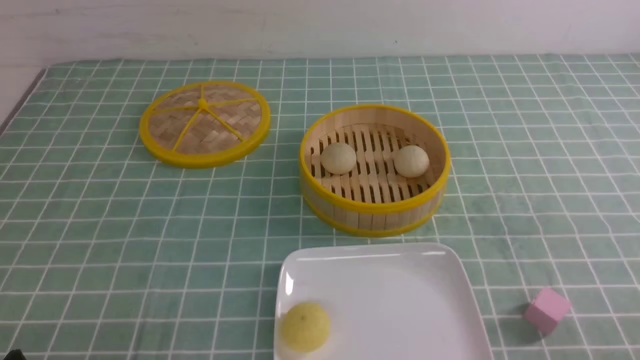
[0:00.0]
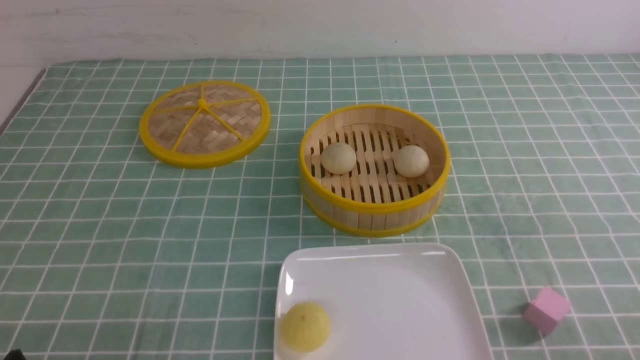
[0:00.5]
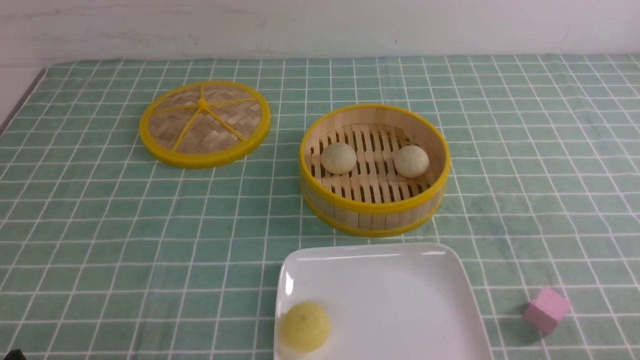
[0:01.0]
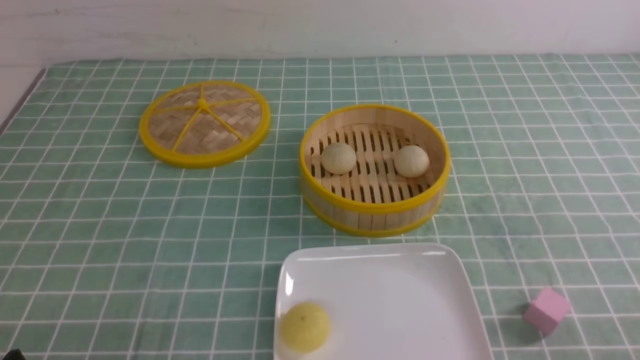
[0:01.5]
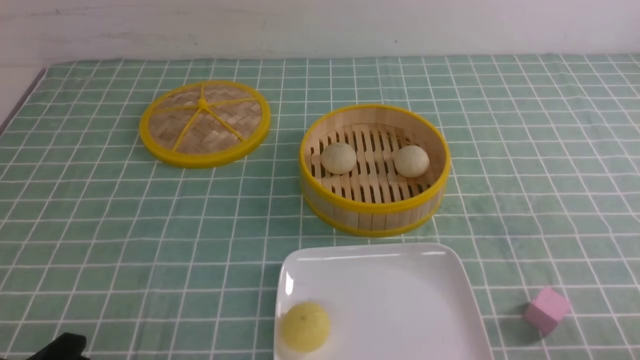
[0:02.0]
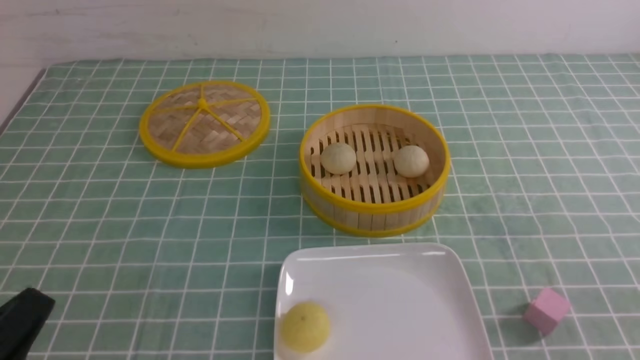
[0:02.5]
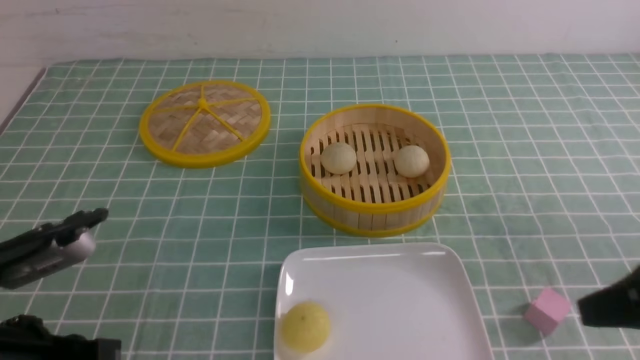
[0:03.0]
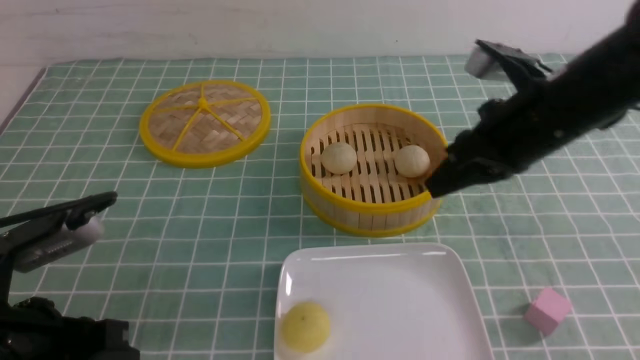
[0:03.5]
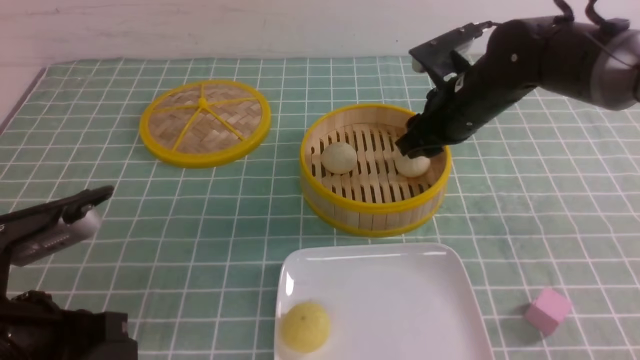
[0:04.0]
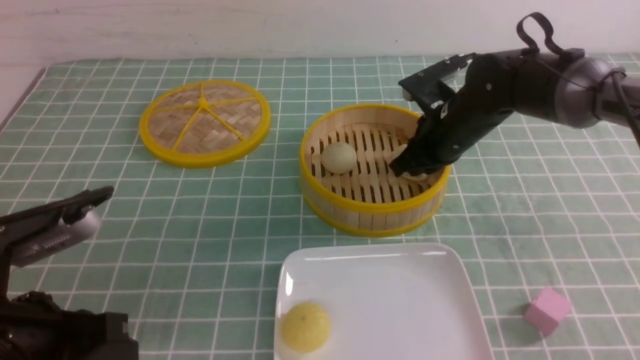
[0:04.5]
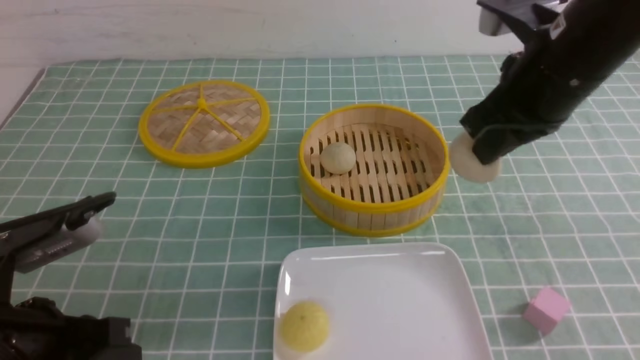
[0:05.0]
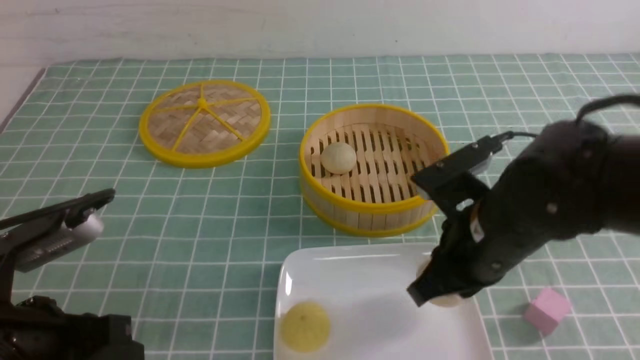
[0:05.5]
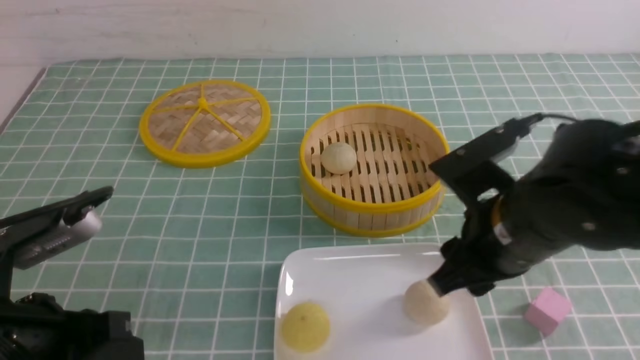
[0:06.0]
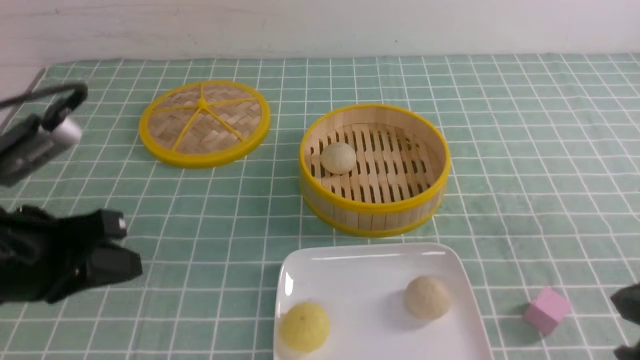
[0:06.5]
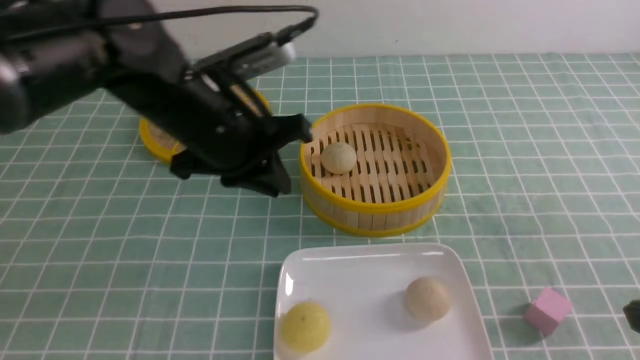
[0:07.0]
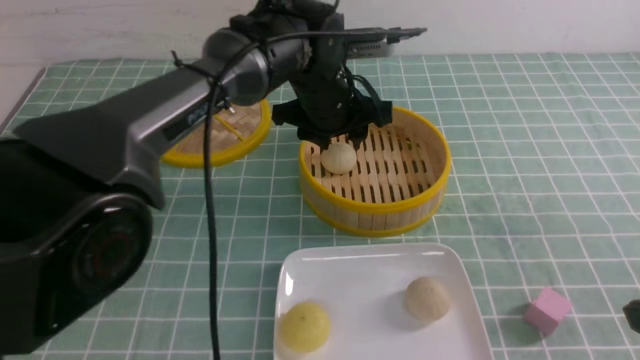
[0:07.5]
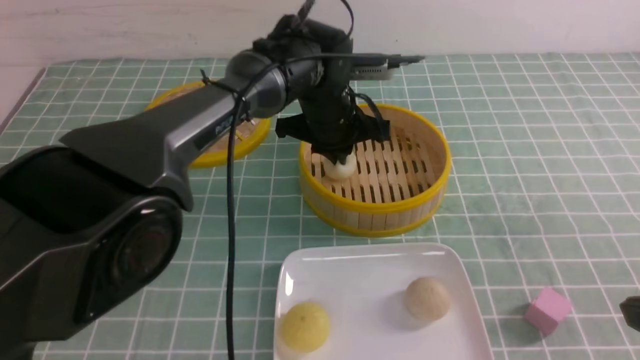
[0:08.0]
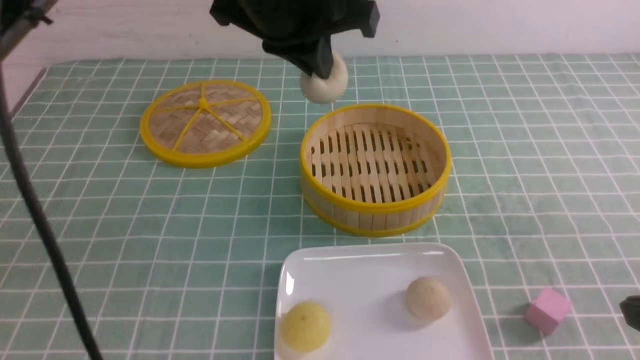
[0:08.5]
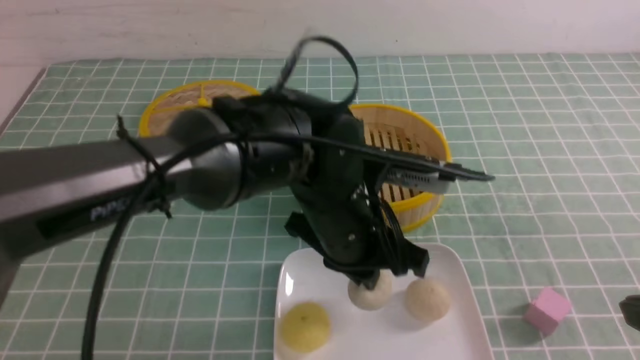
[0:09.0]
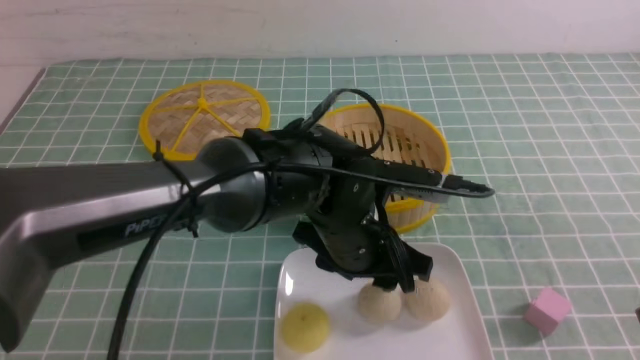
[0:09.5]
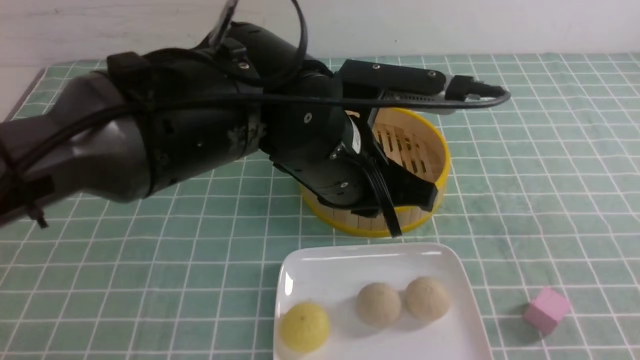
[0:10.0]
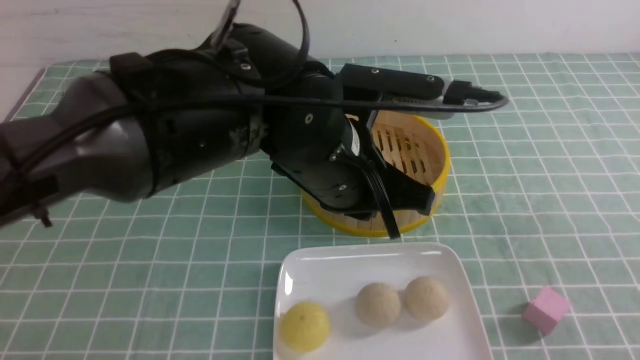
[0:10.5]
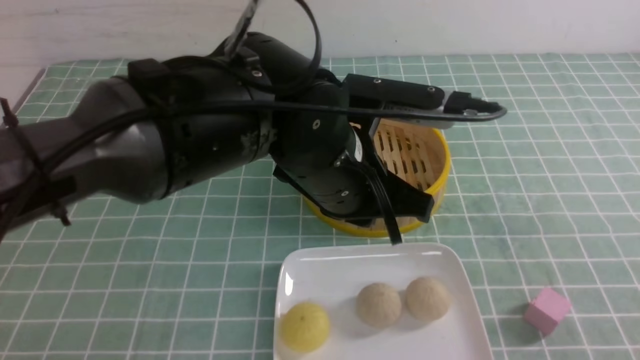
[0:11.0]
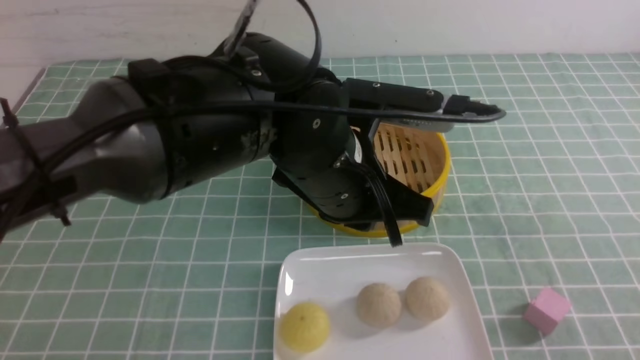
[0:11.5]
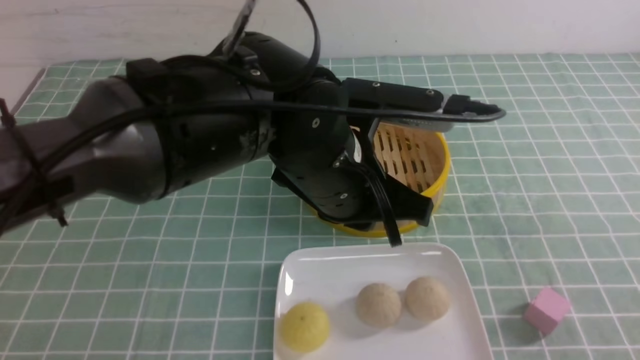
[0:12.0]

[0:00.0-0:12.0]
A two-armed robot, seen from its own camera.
Step, 0:00.0 to 0:04.5: use the right arm to grab the steamed stuffed bun that is closest to it.
Step, 0:05.0 to 0:05.5: use the right arm to put the steamed stuffed bun into the plate.
Step, 0:06.0 to 0:07.5: use the left arm to grab the steamed stuffed bun that is closest to it.
Step, 0:08.5 to 0:09.5: use the left arm to put the steamed stuffed bun into the plate.
0:02.0 to 0:04.0: The right gripper is displaced forward and to the left by approximately 40 cm, and closes, then reopens. Meanwhile the left gripper goes some 10 cm forward and upward, and closes up.
0:04.0 to 0:06.0: The right gripper shifts approximately 20 cm backward, and closes and opens again.
0:06.0 to 0:08.0: The left gripper moves forward and to the right, some 35 cm, and opens and closes again. Meanwhile the right gripper moves backward and to the right, approximately 15 cm, and closes.
0:08.0 to 0:10.0: The left gripper moves backward, roughly 15 cm, and opens and closes again. The right gripper moves backward, about 5 cm.
0:10.0 to 0:12.0: The right gripper goes some 5 cm downward.

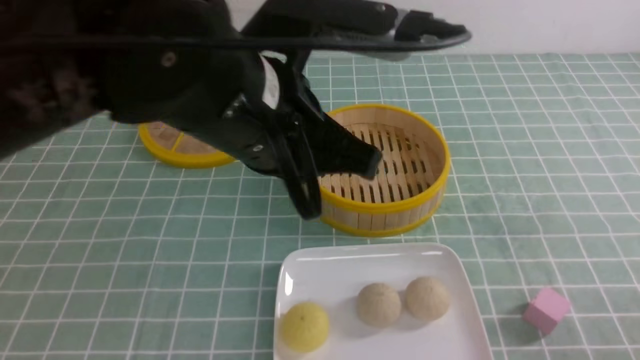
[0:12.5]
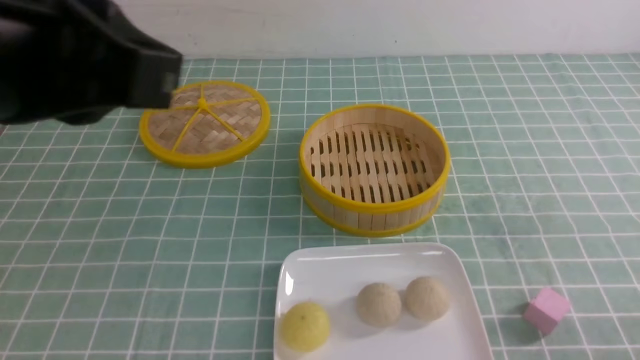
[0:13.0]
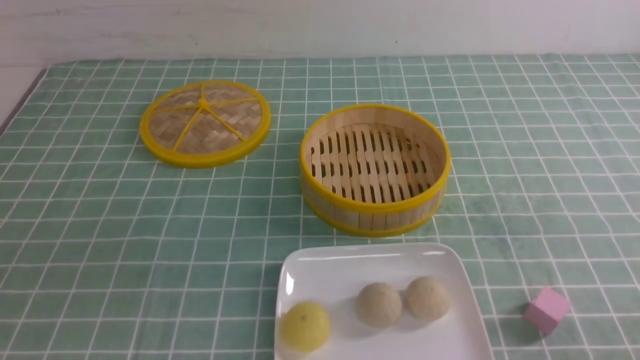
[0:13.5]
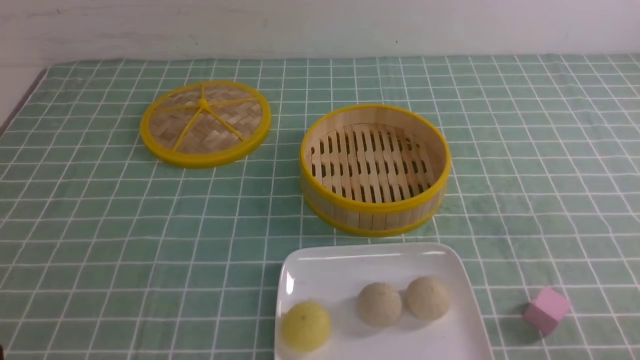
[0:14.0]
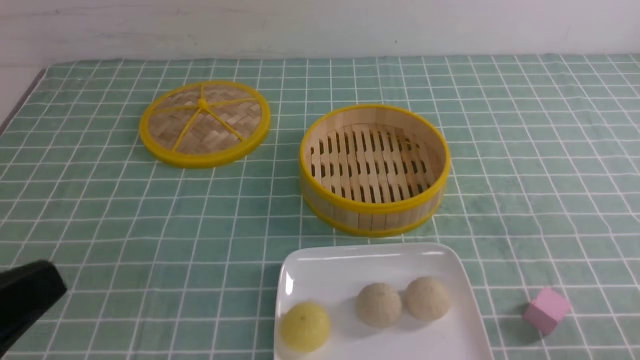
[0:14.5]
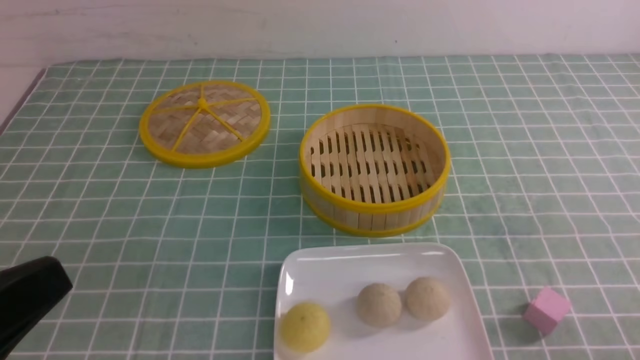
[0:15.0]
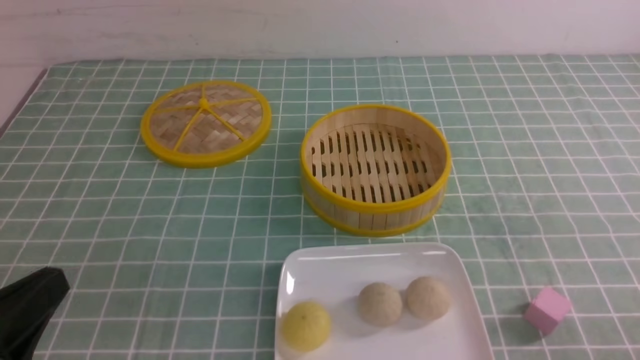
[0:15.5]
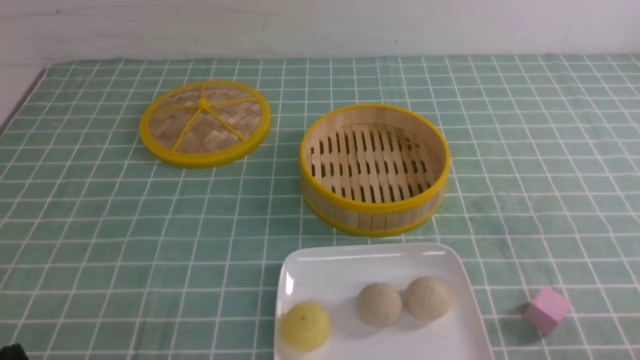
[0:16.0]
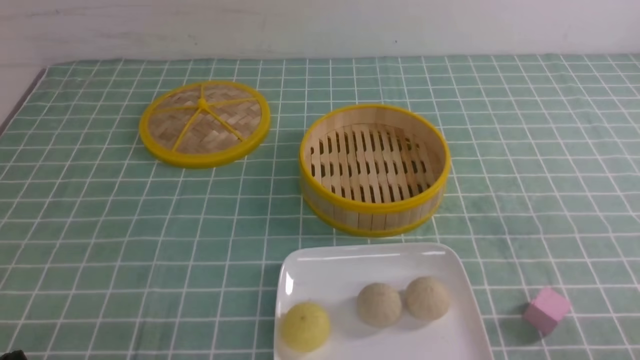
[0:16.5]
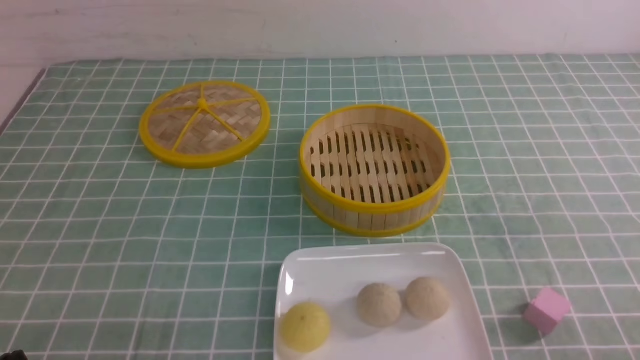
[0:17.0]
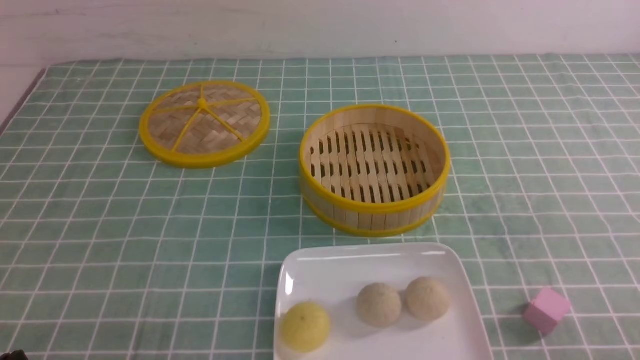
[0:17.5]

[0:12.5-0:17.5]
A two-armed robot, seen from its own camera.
0:12.5 to 0:15.0: The left gripper heads to the left and backward, covering some 25 cm.
0:15.0 to 0:17.5: The left gripper travels downward by about 15 cm.
